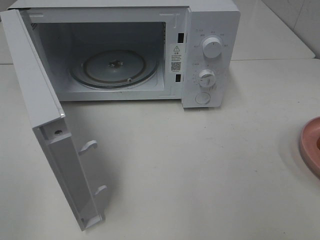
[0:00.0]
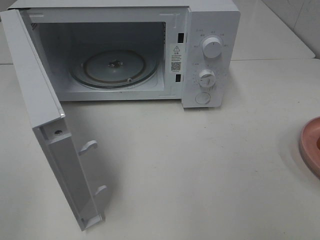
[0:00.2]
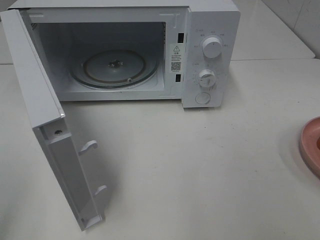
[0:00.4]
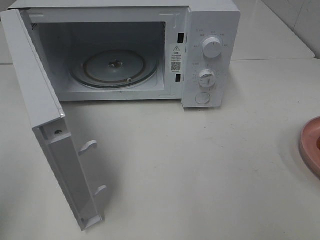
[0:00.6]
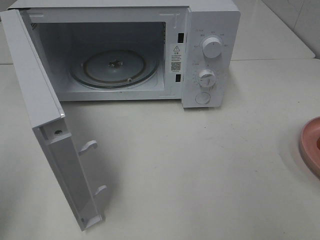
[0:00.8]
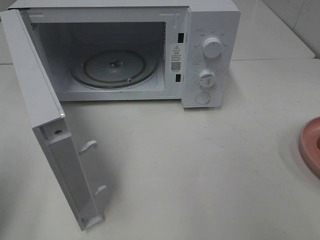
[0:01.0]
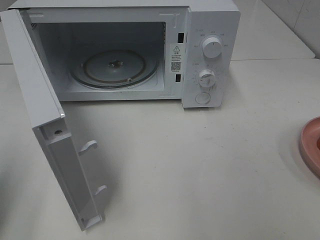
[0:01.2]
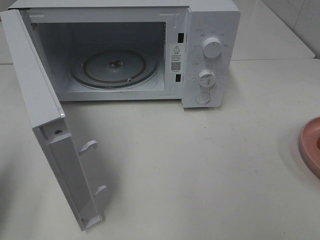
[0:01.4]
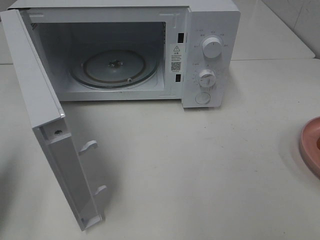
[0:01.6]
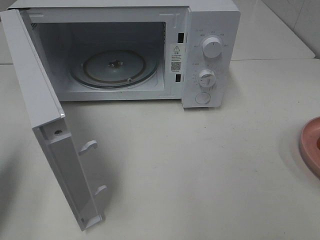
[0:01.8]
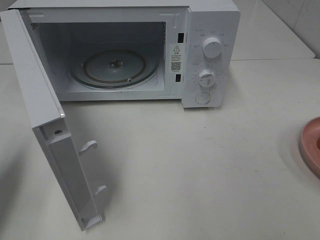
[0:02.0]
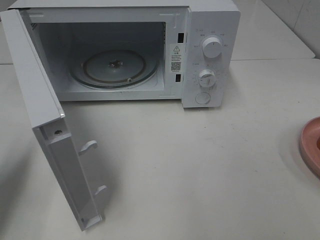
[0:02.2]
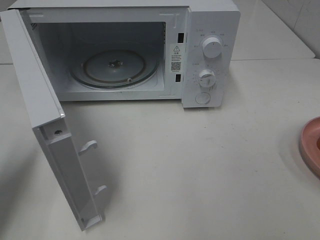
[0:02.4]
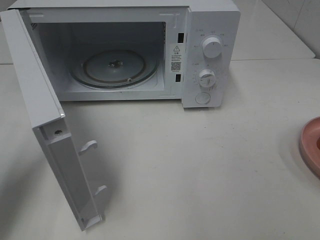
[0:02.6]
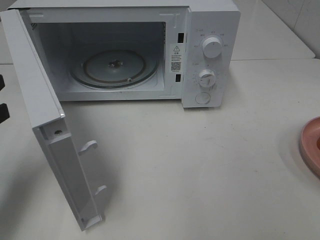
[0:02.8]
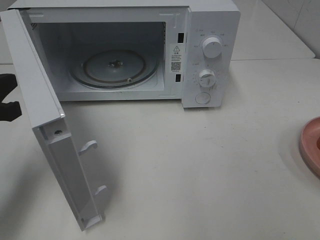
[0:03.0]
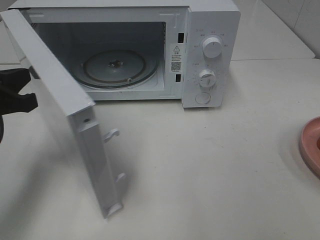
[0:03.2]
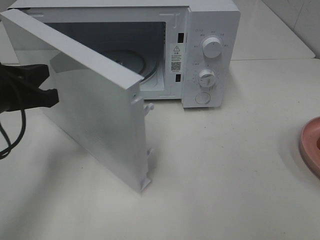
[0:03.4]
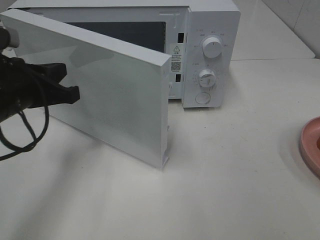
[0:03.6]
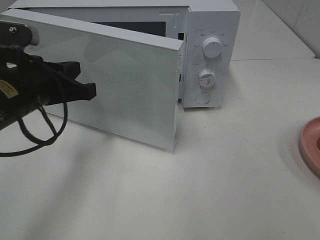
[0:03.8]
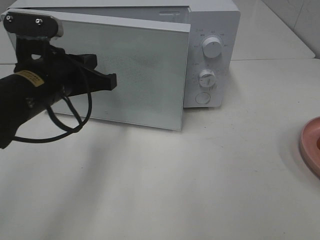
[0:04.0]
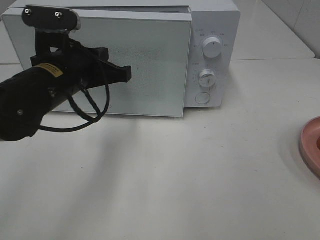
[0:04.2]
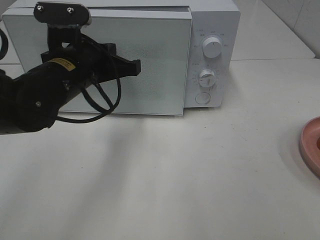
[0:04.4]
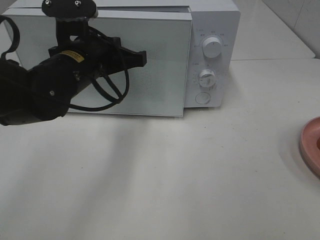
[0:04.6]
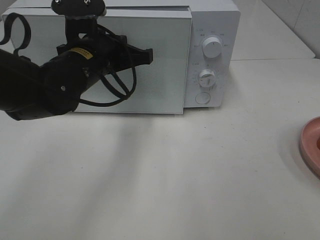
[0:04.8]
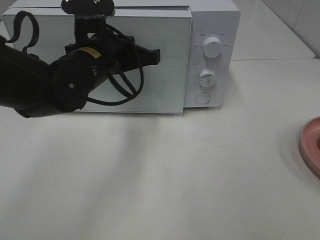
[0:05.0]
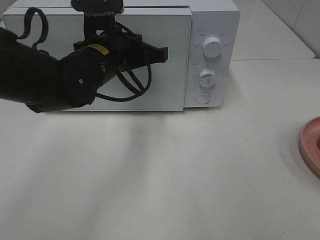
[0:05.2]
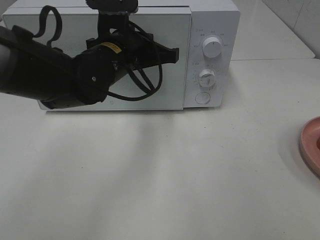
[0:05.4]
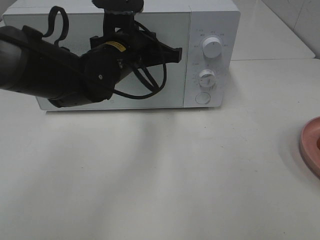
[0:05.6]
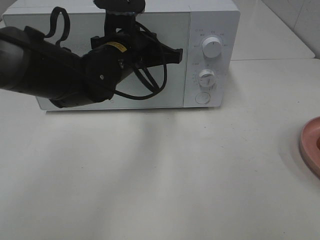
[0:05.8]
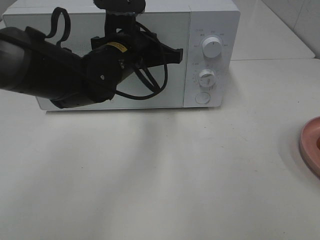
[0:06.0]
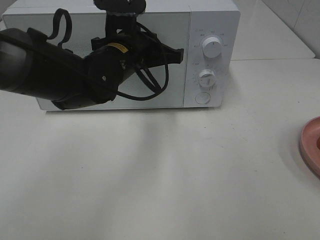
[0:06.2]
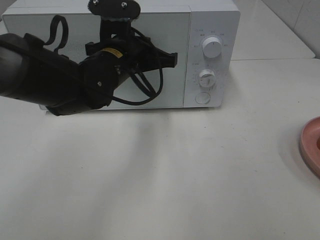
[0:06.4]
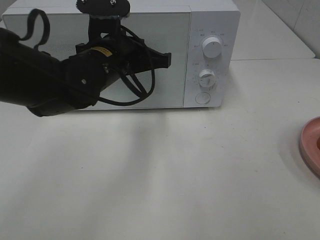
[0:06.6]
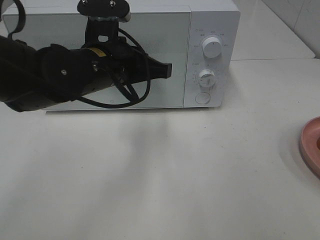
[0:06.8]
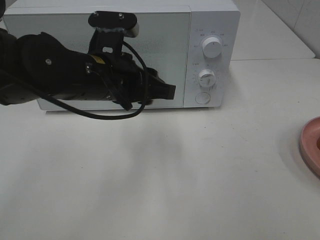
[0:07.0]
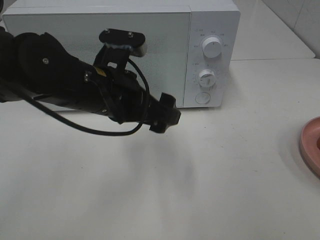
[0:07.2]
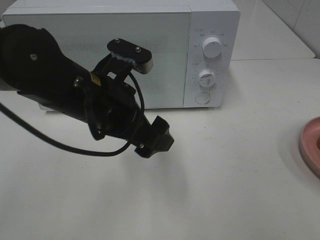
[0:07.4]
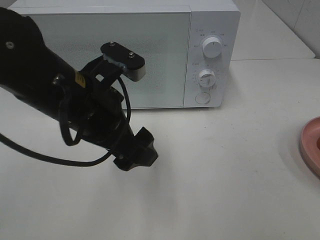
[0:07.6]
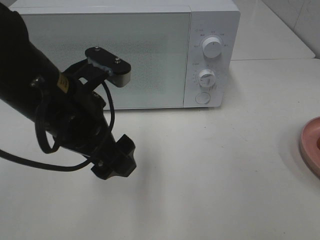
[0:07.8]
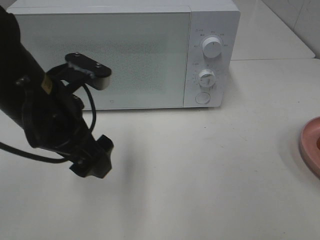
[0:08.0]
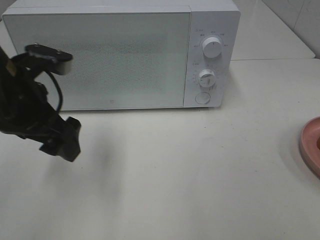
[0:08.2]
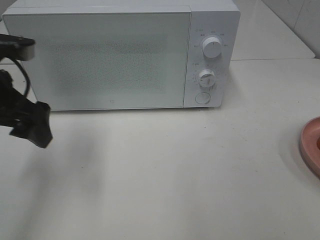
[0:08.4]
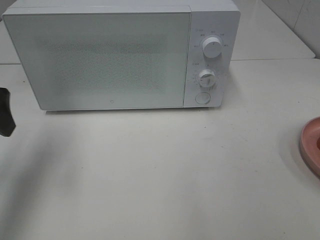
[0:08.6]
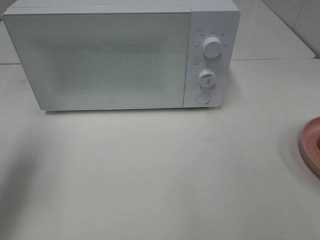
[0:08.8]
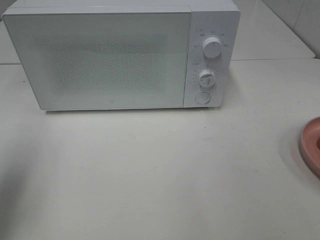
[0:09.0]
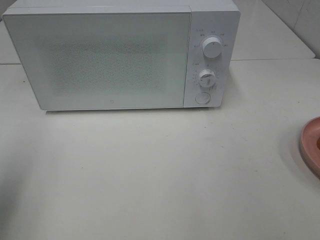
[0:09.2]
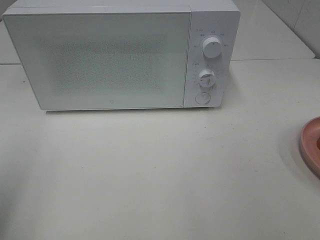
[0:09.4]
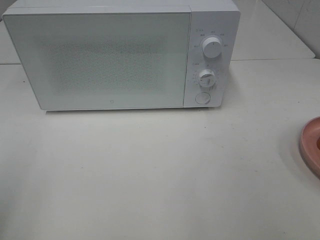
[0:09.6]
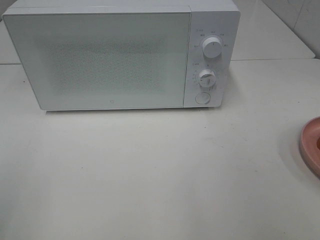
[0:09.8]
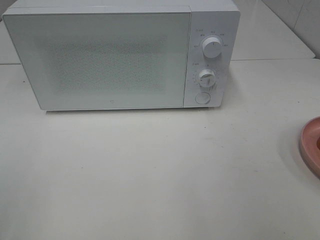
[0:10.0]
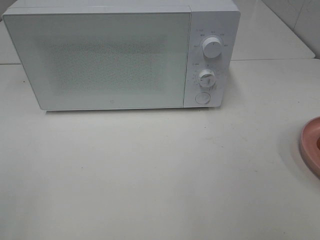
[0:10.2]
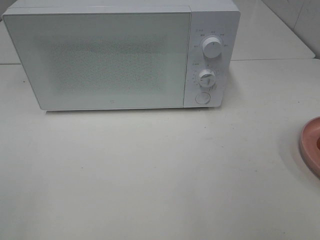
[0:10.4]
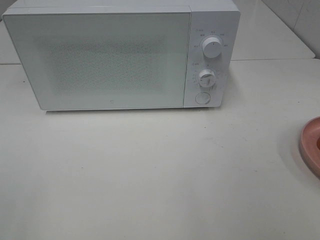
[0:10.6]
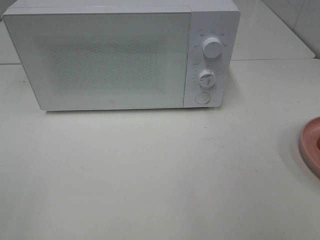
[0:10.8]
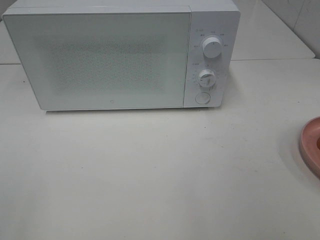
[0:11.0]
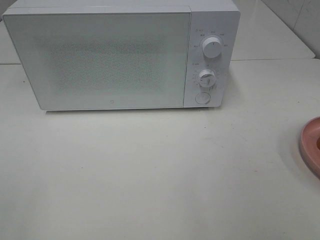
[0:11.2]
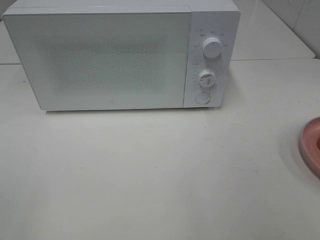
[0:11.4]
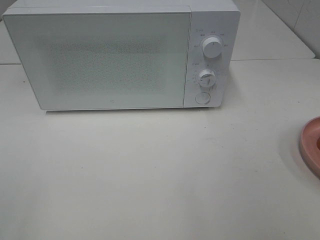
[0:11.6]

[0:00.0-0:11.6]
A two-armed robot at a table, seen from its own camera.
Task of the whole recording: Heat Sandwich.
Step, 0:00.0 to 0:07.0: Left hand: close the microwave door.
0:00.0 to 0:01.4: The left gripper moves forward and downward, approximately 15 cm, and closes.
0:01.4 to 0:02.8: The left gripper heads forward, covering some 5 cm.
0:02.8 to 0:04.4: The left gripper moves to the right and forward, some 20 cm.
0:04.4 to 0:05.8: The left gripper shifts about 5 cm to the right.
0:05.8 to 0:07.2: The left gripper is displaced backward by approximately 10 cm, and opens up.
0:07.2 to 0:08.8: The left gripper travels to the left by approximately 25 cm.
0:08.8 to 0:10.2: The left gripper travels backward by about 20 cm.
0:10.2 to 0:11.6: Both grippers stay about where they are.

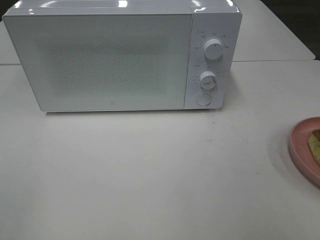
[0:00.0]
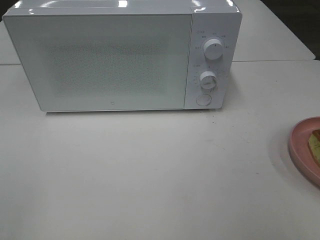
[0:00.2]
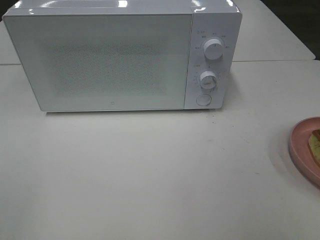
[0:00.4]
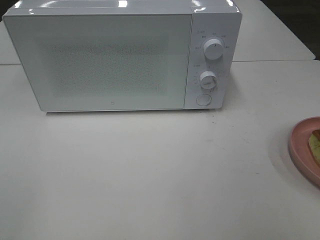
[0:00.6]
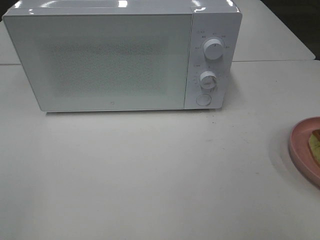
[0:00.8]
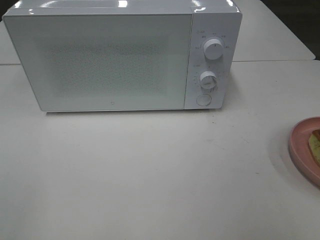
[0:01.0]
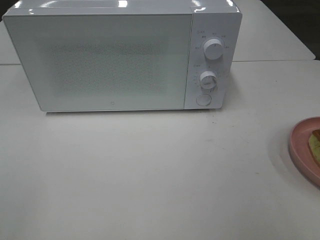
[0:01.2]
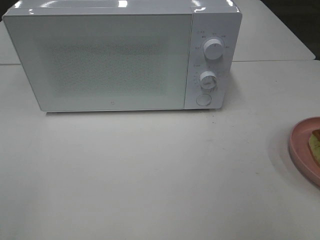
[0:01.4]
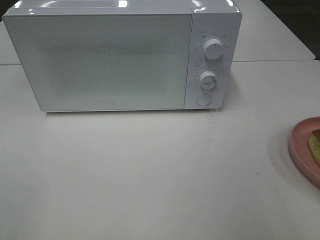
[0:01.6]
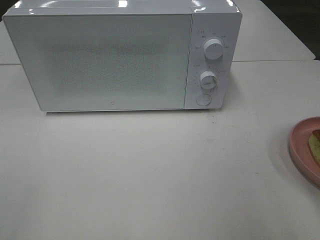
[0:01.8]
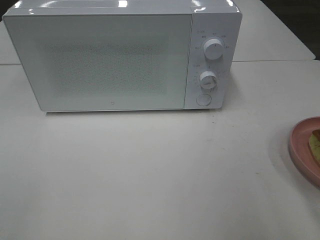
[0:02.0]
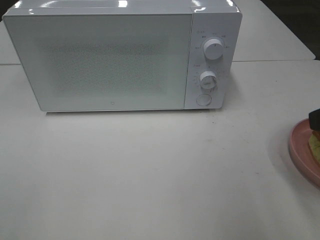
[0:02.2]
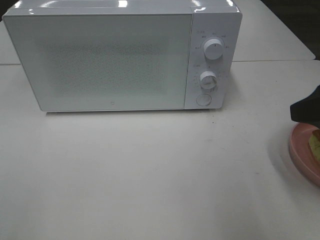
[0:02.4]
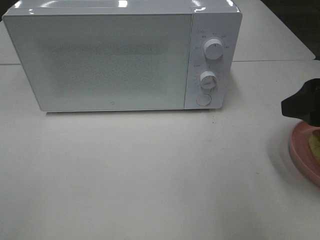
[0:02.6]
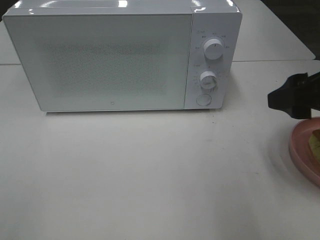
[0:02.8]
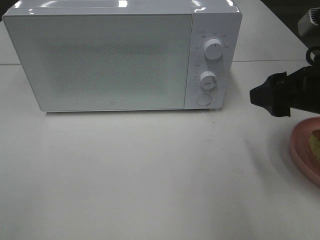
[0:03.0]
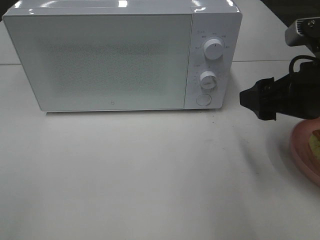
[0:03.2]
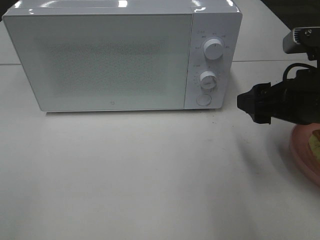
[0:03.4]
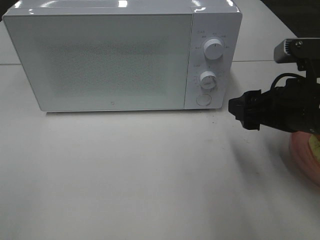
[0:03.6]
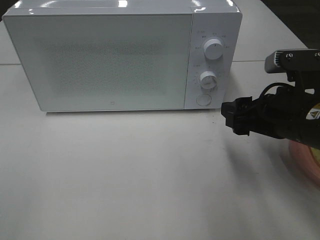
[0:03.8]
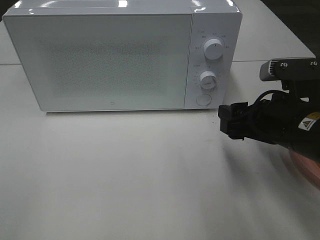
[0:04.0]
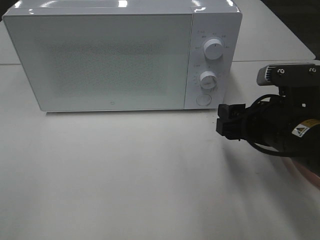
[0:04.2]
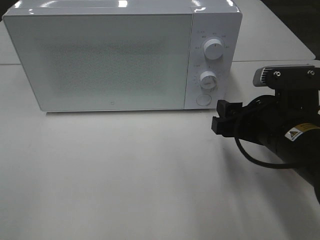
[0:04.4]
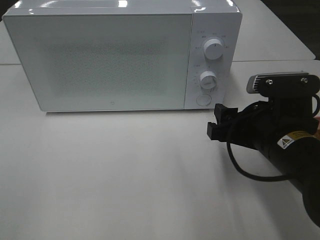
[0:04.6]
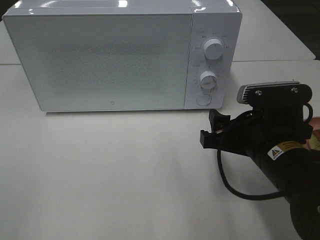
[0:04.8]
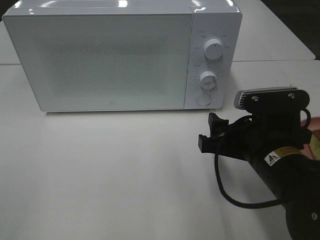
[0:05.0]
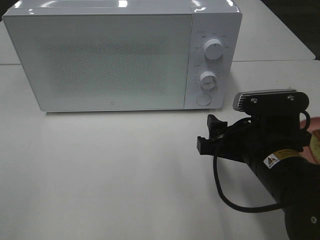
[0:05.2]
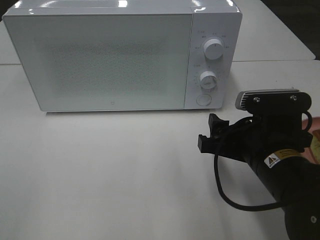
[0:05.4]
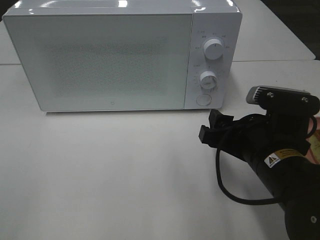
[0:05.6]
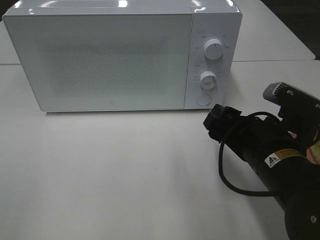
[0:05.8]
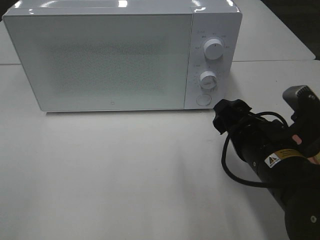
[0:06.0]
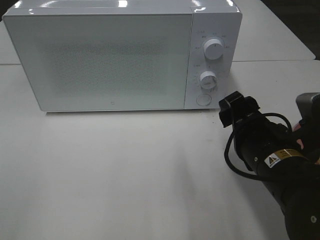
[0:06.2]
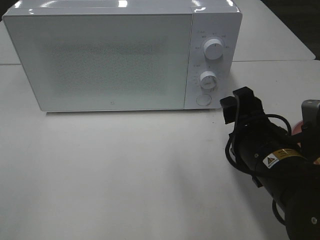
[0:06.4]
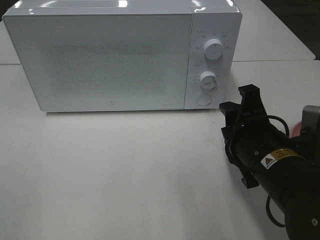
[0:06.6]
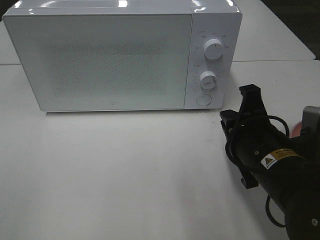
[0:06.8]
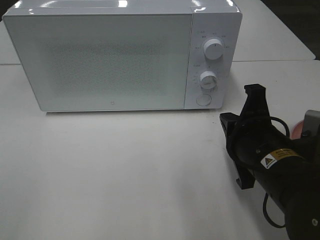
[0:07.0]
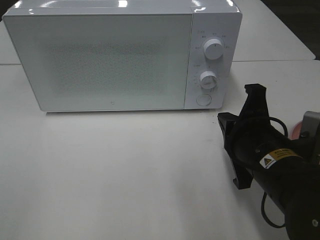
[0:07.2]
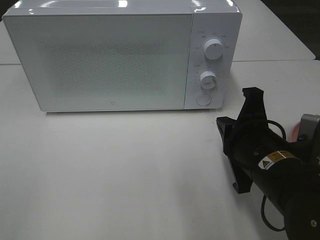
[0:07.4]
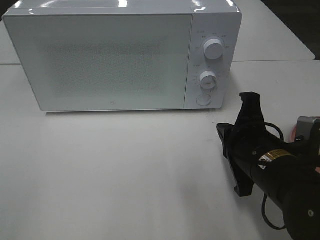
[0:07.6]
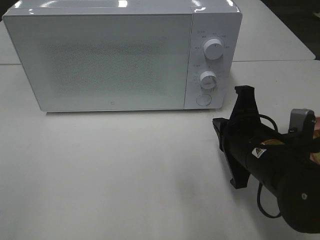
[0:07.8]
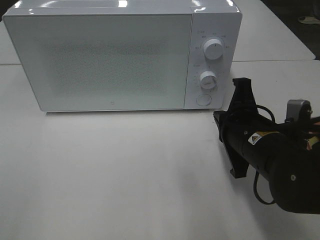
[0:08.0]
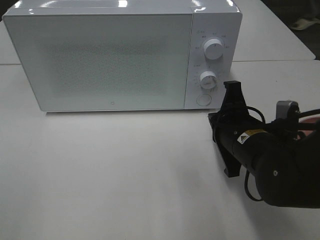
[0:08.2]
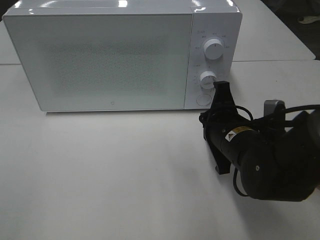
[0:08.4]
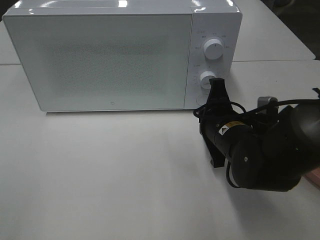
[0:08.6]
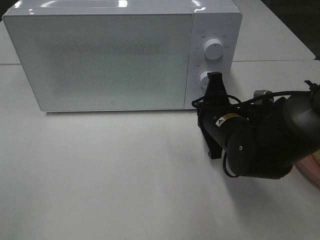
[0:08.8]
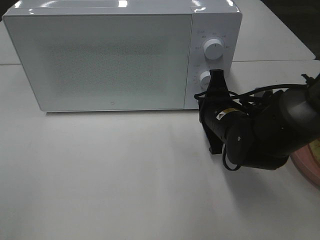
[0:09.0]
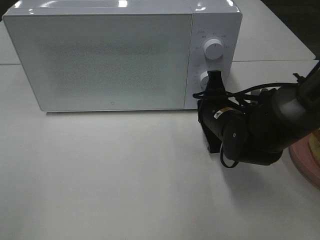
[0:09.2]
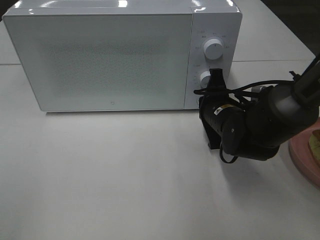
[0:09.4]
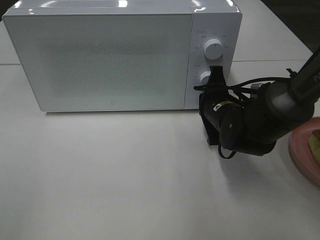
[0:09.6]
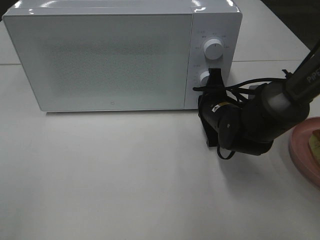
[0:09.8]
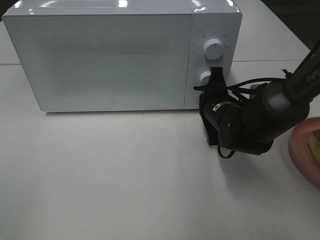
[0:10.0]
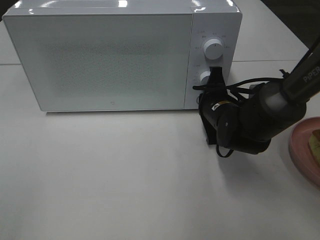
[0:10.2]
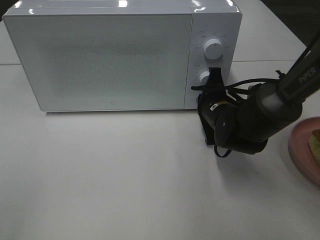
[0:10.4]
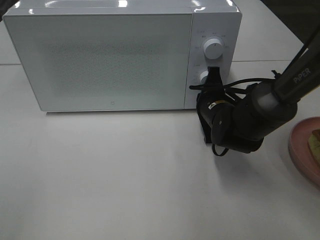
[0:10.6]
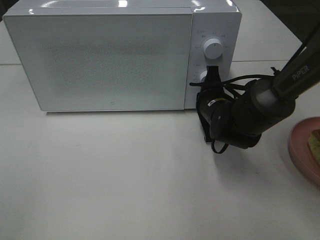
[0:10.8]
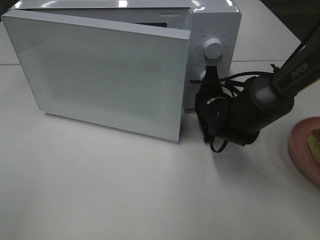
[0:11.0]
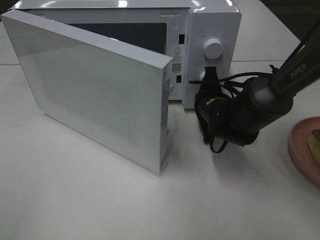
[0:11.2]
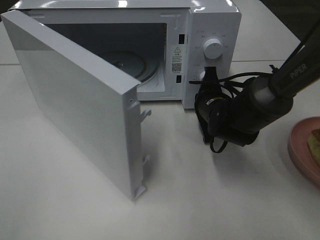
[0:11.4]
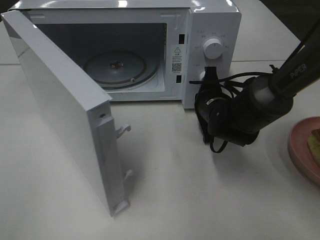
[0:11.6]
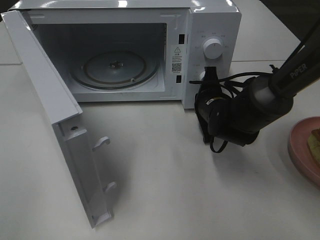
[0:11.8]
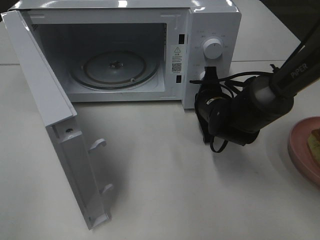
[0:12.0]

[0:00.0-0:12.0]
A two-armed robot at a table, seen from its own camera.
Task of the whole recording: Heat Sandwich.
0:01.6 to 0:03.0: The right gripper travels forward and to the left by some 15 cm.
0:03.0 to 0:04.4: The right gripper travels downward by approximately 10 cm.
0:06.0 to 0:07.6: The right gripper closes.
0:07.6 to 0:09.0: The right gripper moves forward, approximately 10 cm.
0:09.0 to 0:10.4: The grippers move only a little.
